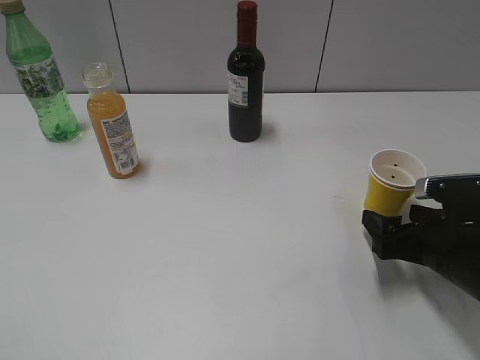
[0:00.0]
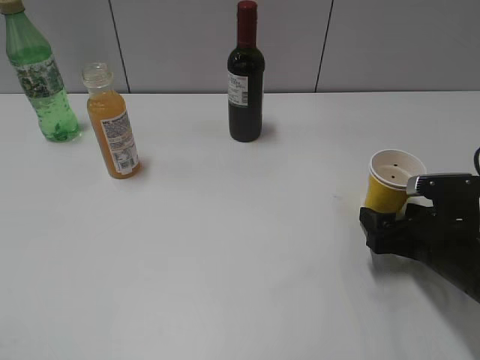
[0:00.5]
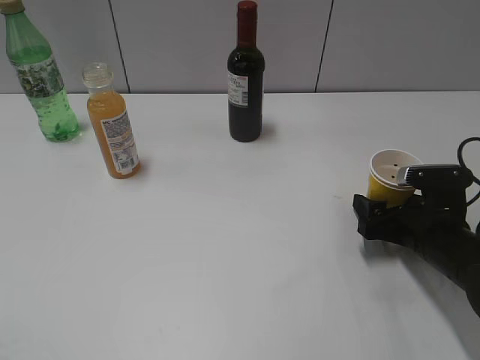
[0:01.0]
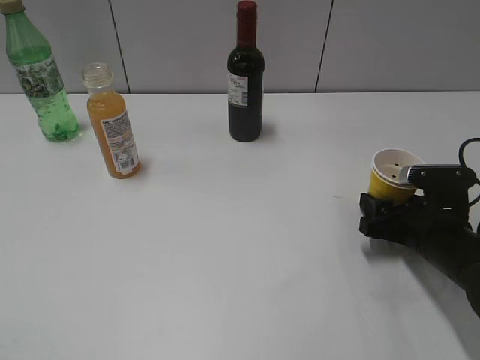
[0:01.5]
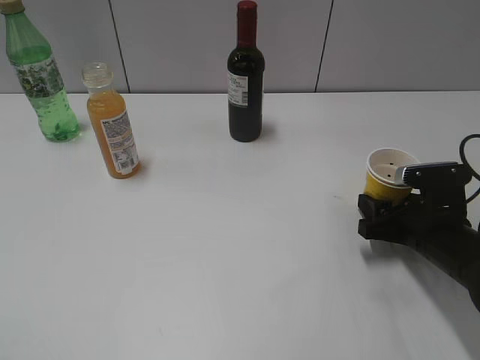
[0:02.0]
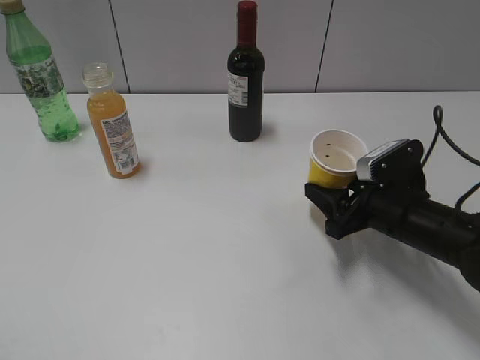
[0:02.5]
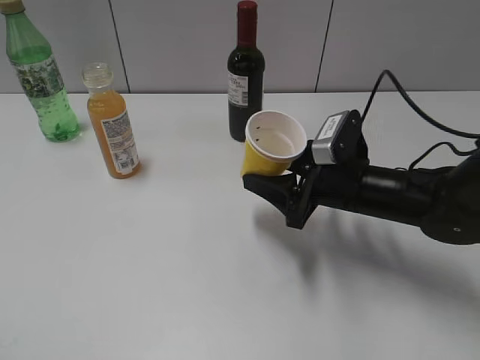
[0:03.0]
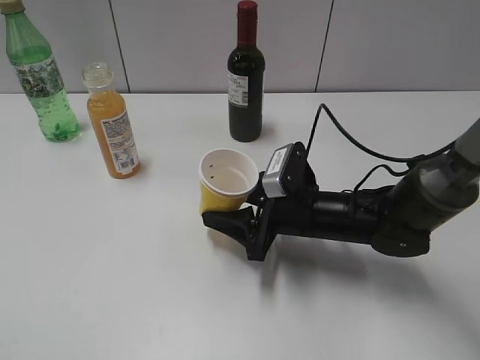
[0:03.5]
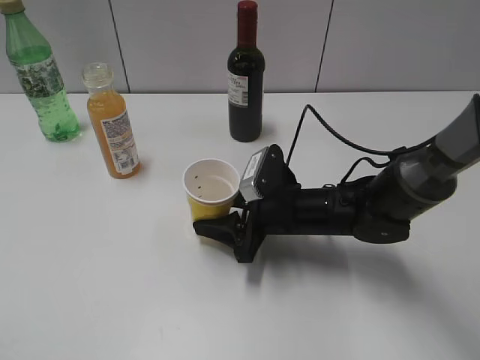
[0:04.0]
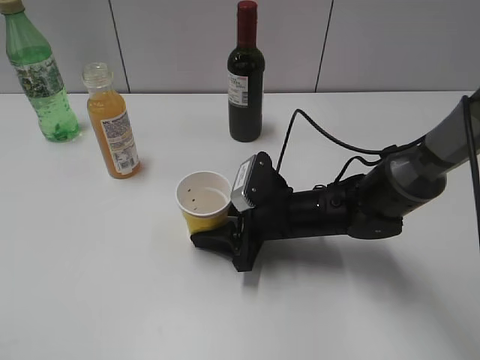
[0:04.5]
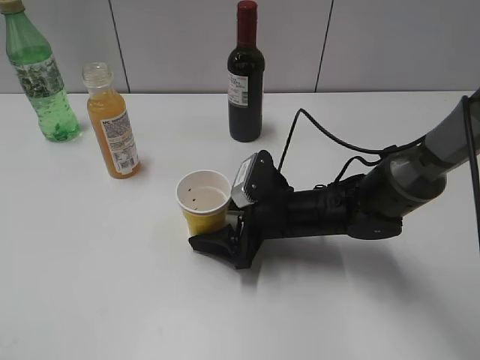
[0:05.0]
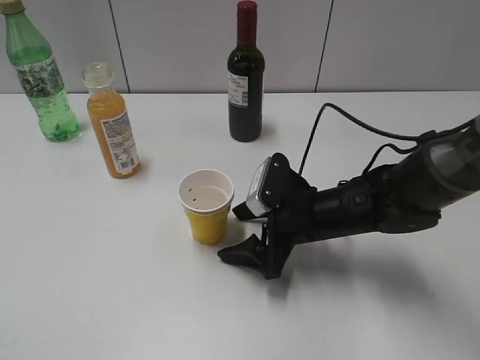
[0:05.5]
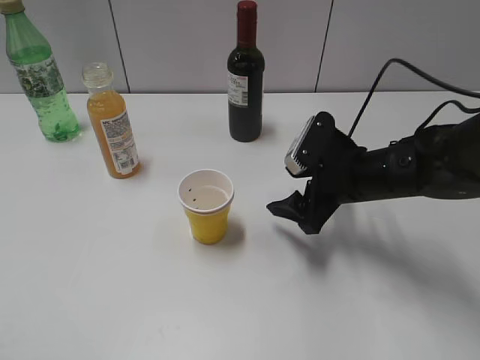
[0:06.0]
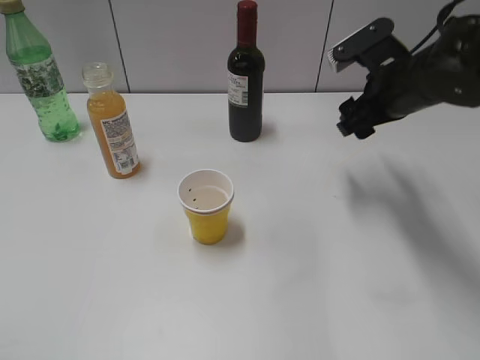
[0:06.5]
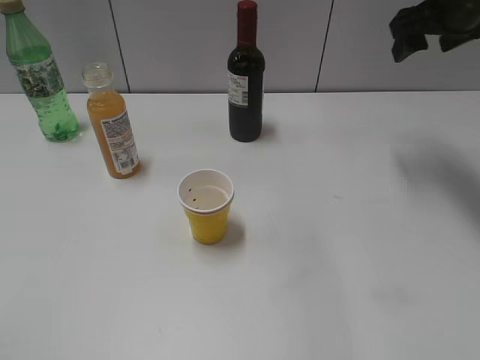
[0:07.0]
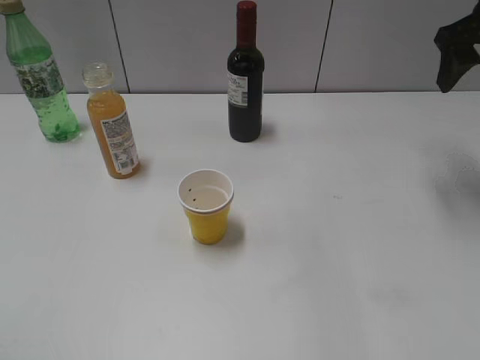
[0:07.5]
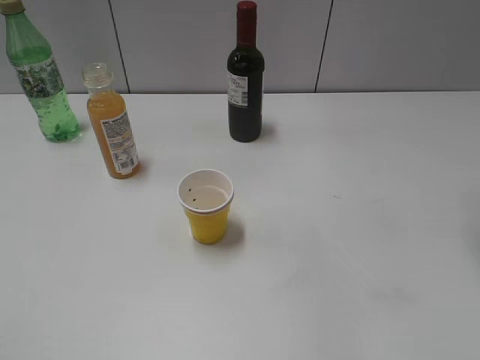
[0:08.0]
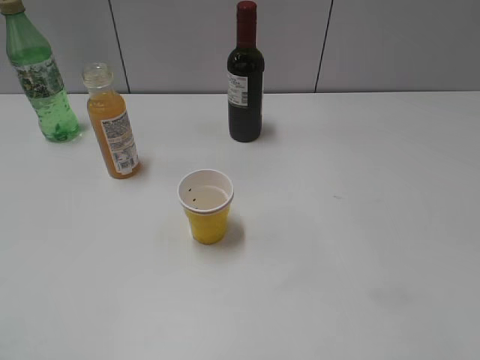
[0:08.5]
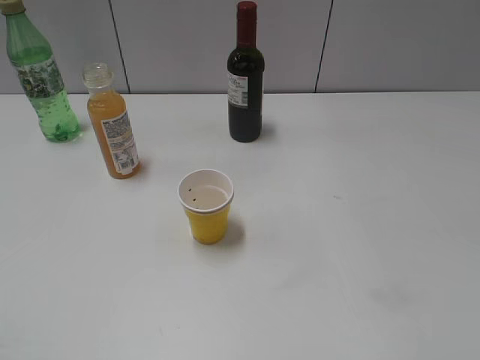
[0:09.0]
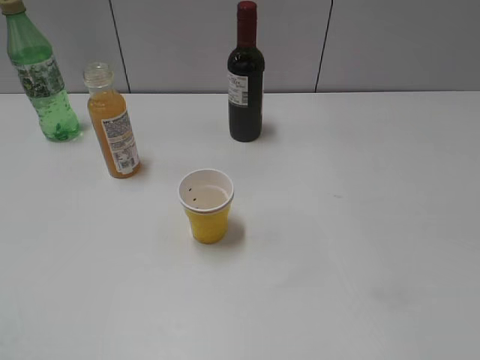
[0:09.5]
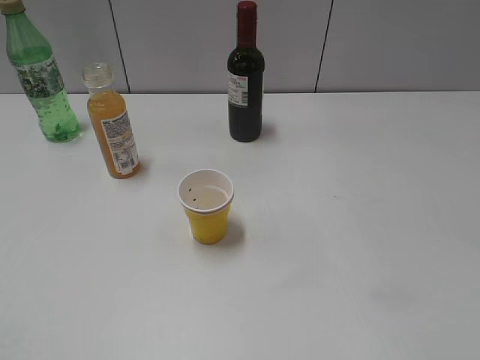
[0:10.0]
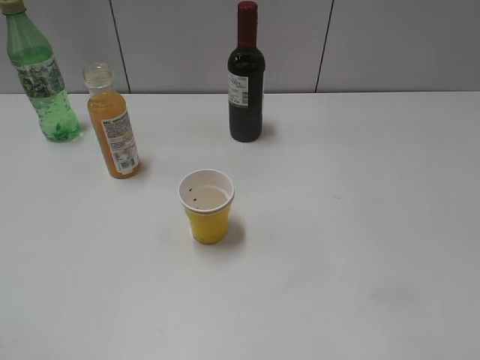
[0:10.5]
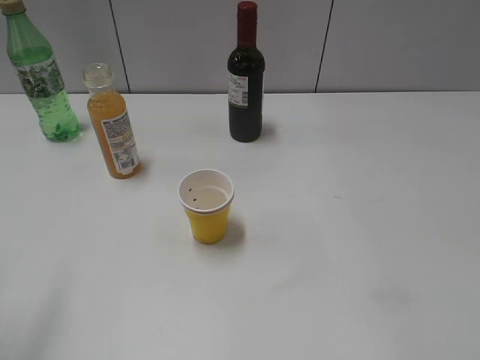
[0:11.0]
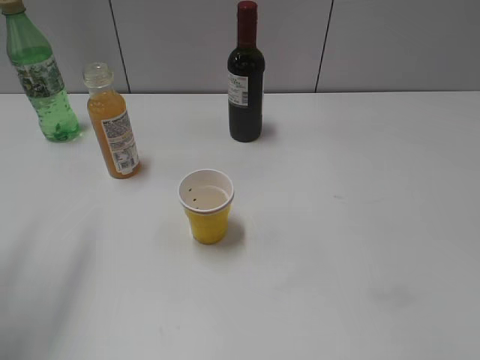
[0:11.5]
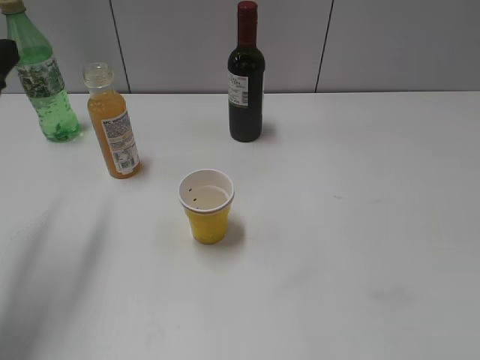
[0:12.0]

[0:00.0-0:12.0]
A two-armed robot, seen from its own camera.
Step, 0:02.0 to 0:05.0: Place the yellow paper cup on the table with right gripper.
0:00.0 to 0:02.0: The right gripper closes its fingers.
0:02.0 to 0:04.0: The right gripper is displaced to the left by roughly 15 cm.
0:04.0 to 0:06.0: The right gripper moves to the right and upward, approximately 10 cm, and opens its fingers.
0:06.0 to 0:08.0: The right gripper heads upward and to the right, covering roughly 25 cm; the left gripper opens.
0:10.0 to 0:12.0: The left gripper is displaced forward by approximately 25 cm.

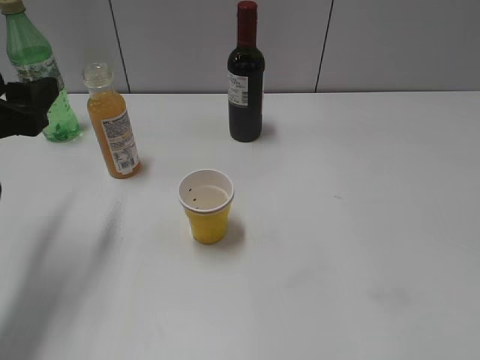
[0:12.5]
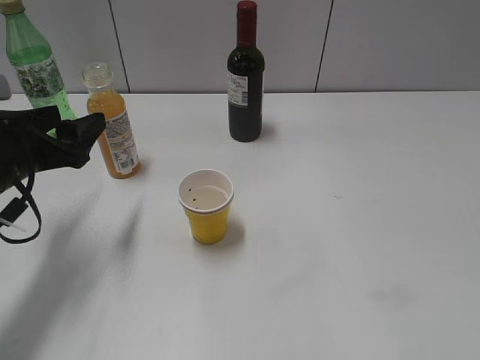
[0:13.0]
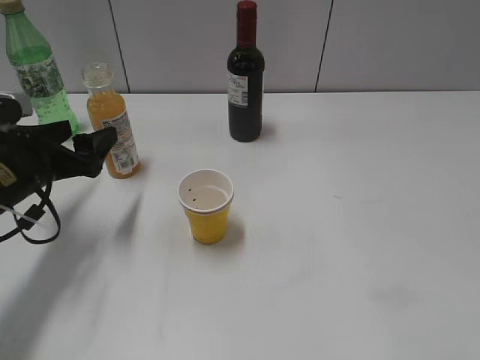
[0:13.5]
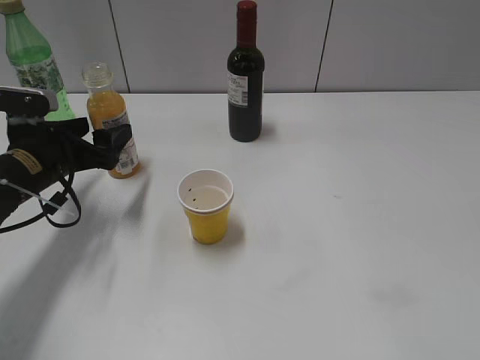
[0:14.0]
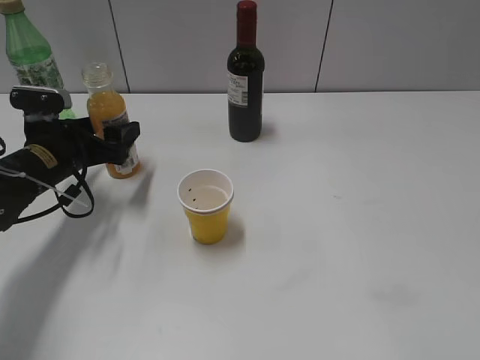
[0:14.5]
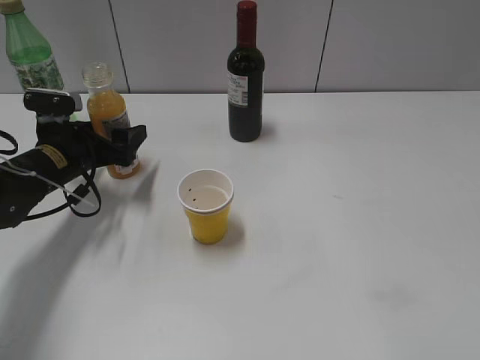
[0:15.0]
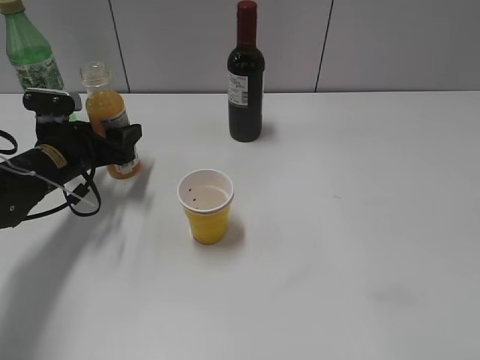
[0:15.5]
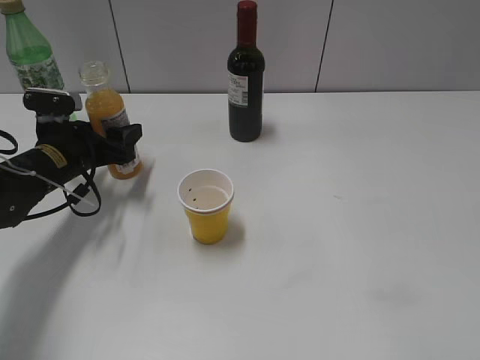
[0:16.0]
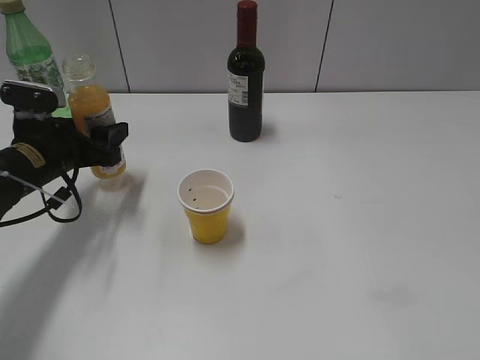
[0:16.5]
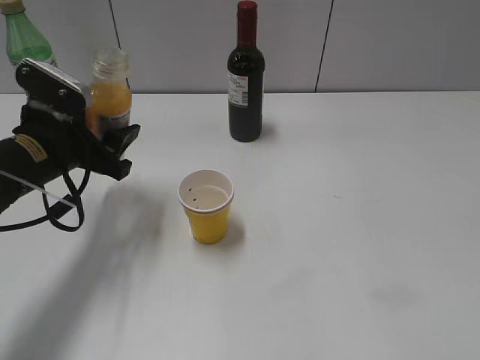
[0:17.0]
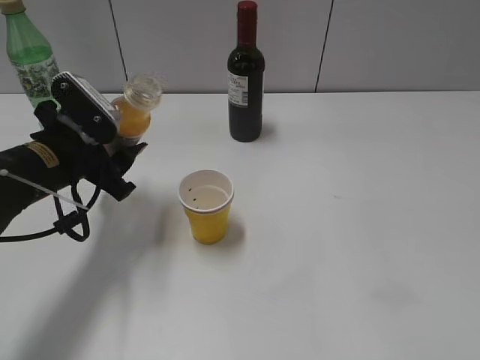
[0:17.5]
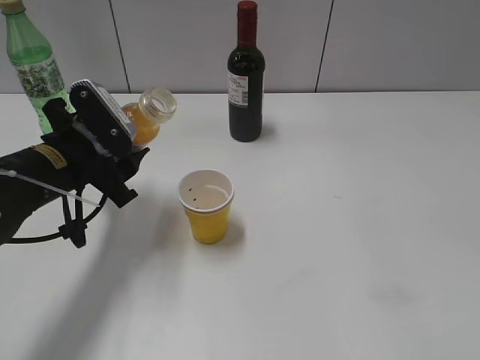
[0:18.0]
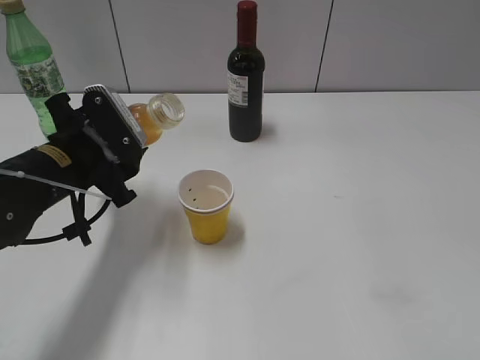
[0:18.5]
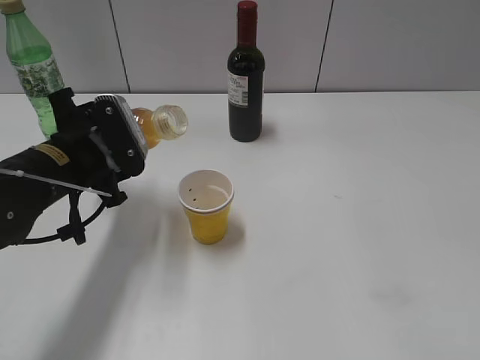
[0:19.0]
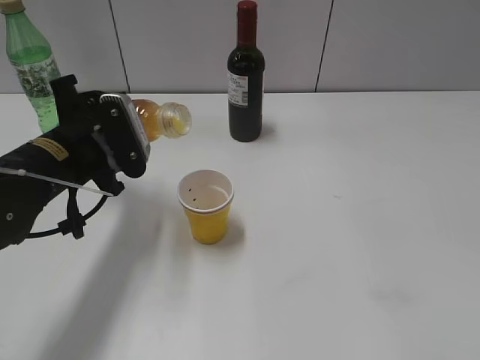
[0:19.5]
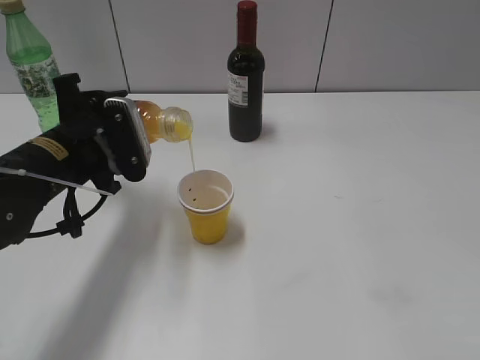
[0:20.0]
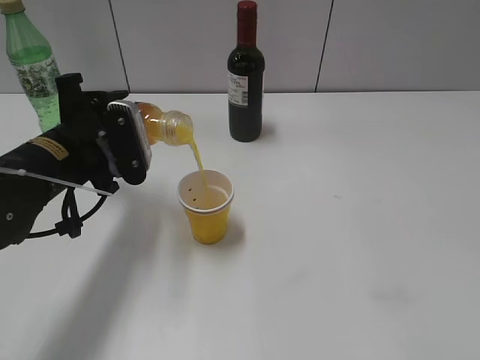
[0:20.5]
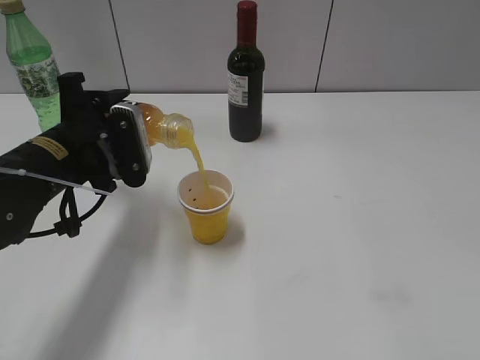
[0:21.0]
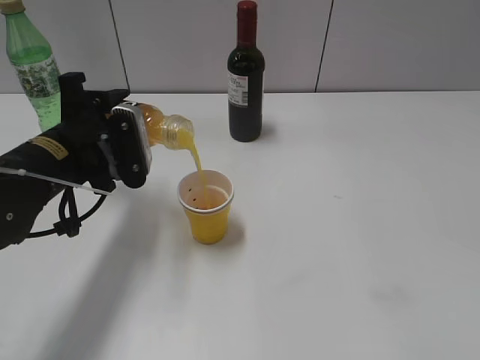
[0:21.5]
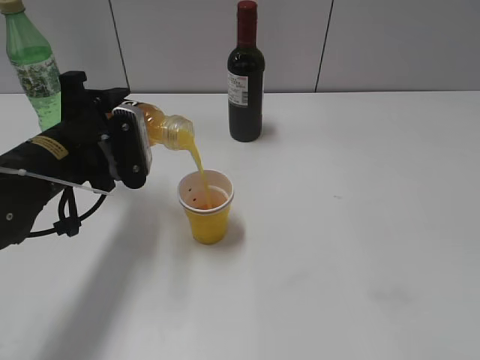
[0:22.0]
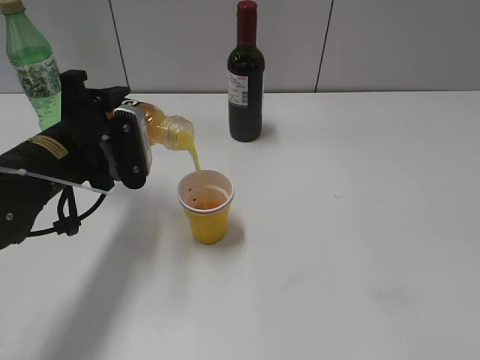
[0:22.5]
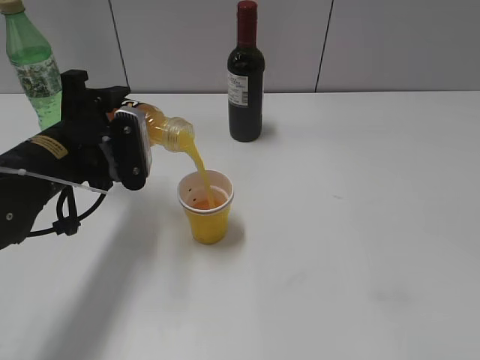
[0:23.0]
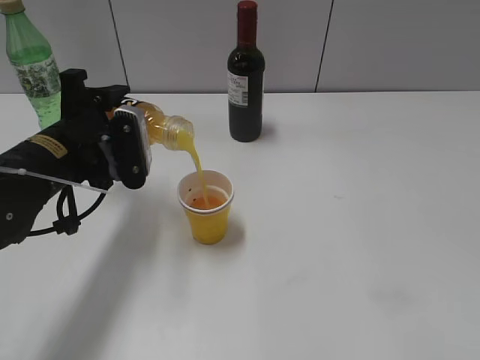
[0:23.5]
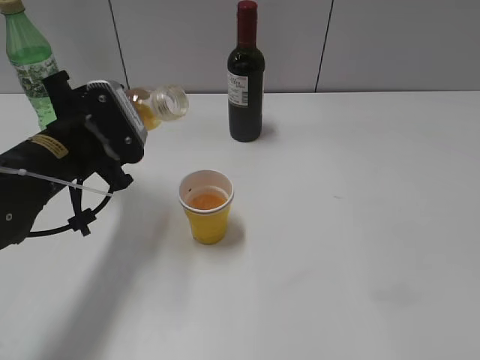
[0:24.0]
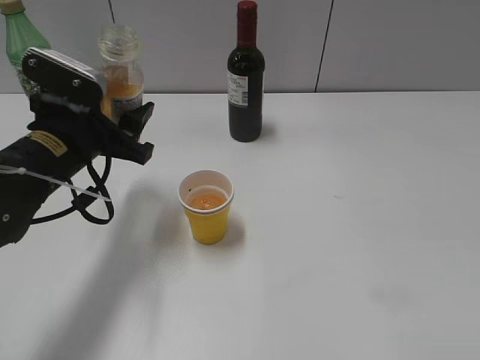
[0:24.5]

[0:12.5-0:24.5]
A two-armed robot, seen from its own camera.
Step, 0:12.5 to 0:16.0: Grasp the bottle with orange juice with left gripper.
Step, 0:16.5 to 0:24.0: Pour the orange juice from bottle to cup with left gripper.
0:12.5 to 0:14.5: The left gripper travels downward and forward by roughly 15 cm.
0:14.5 to 0:16.5: The left gripper closes.
0:16.5 to 0:18.5: The left gripper is displaced to the right and backward by roughly 10 cm.
0:20.5 to 0:22.5: The grippers make only small movements.

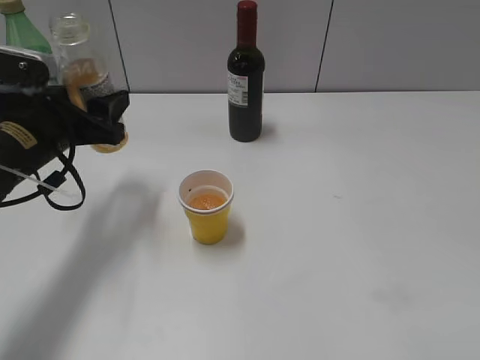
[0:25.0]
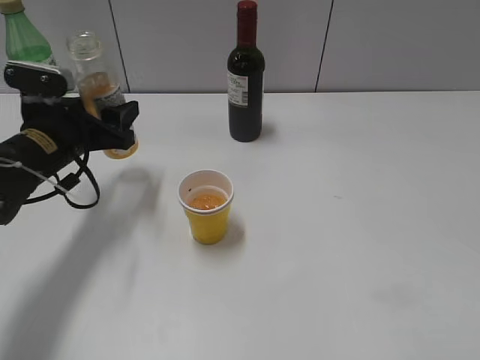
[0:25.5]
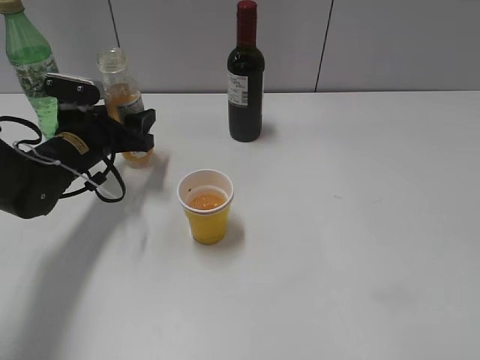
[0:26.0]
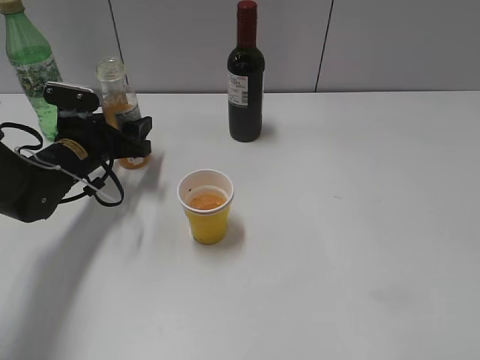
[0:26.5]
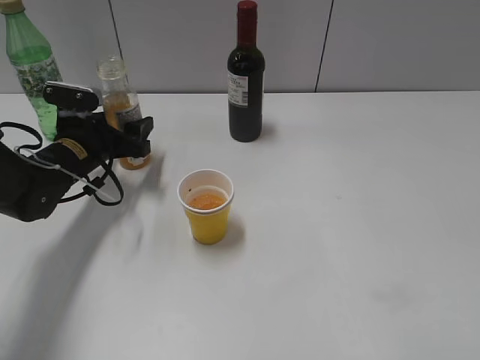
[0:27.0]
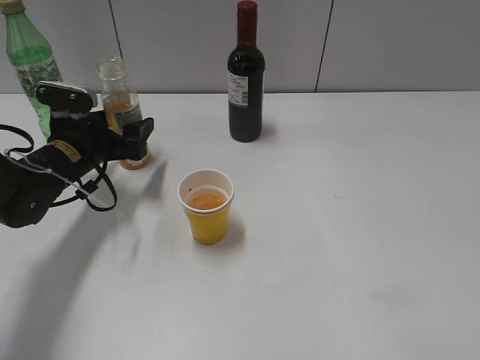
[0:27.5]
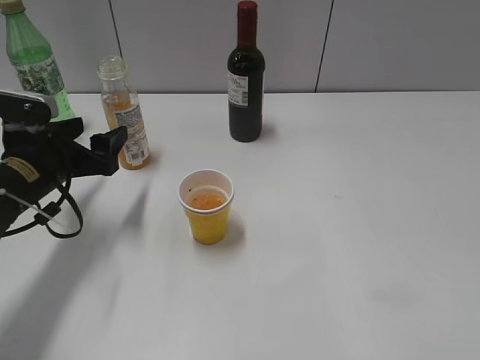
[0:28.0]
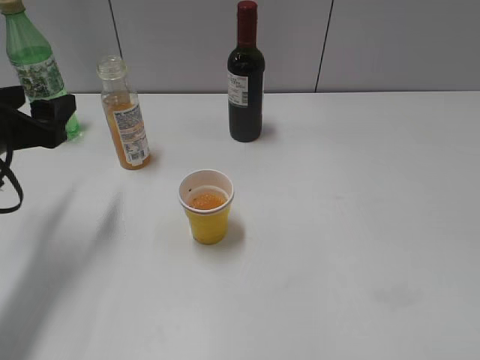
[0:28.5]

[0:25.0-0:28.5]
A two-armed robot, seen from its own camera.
Step, 0:25.0 to 0:27.5: Place the orange juice bottle on the table with left gripper.
0:25.0 to 0:27.0: The left gripper is displaced downward and forward by about 10 cm.
0:27.0 to 0:28.5: The left gripper goes roughly 15 cm backward, upward and to the left.
